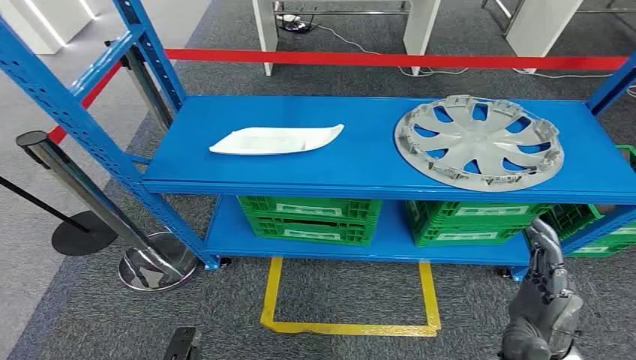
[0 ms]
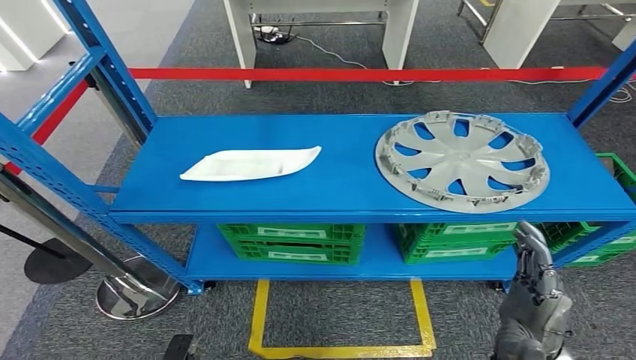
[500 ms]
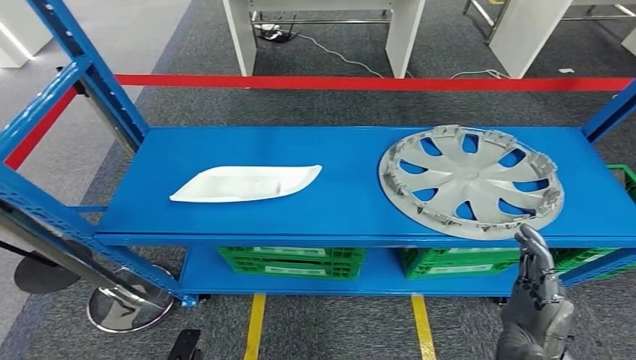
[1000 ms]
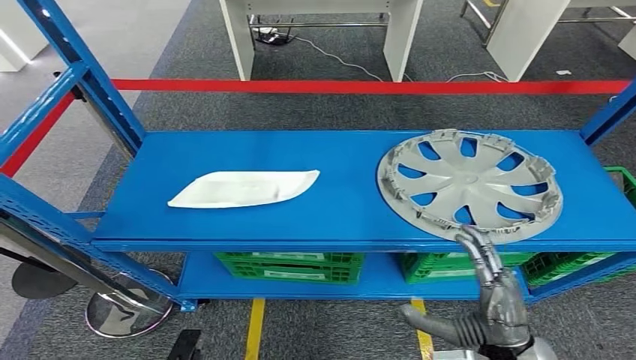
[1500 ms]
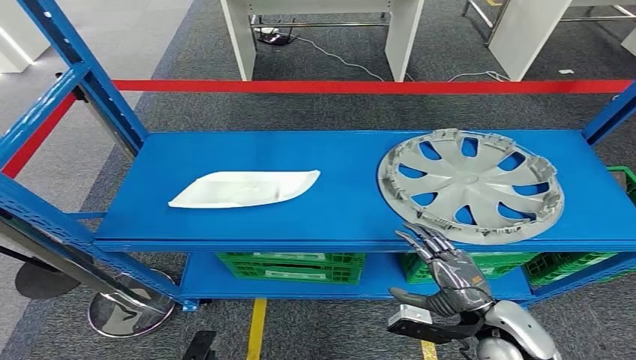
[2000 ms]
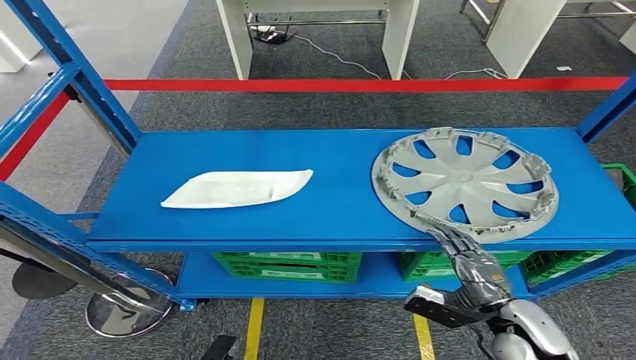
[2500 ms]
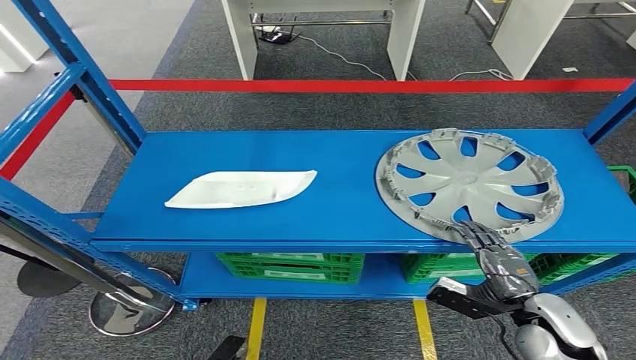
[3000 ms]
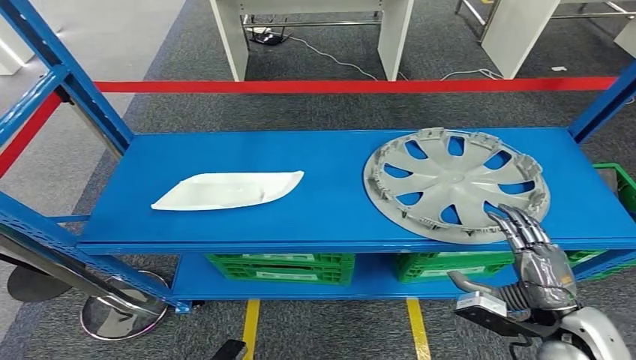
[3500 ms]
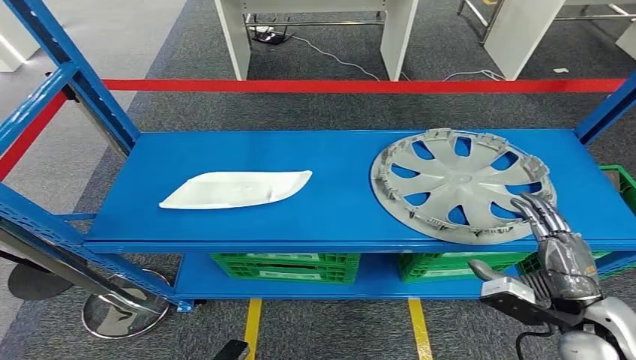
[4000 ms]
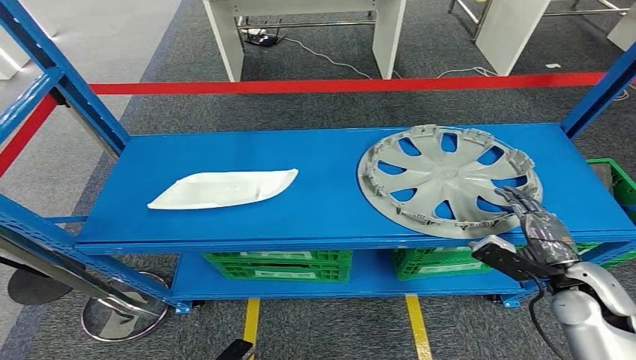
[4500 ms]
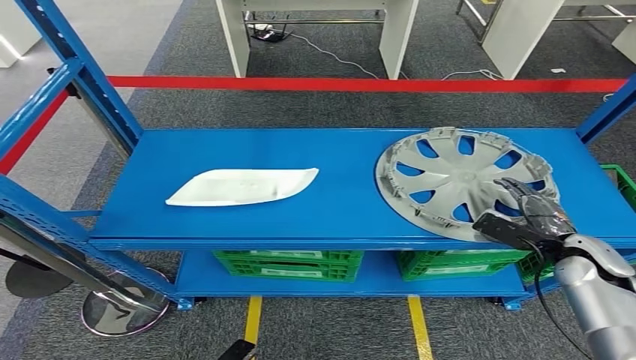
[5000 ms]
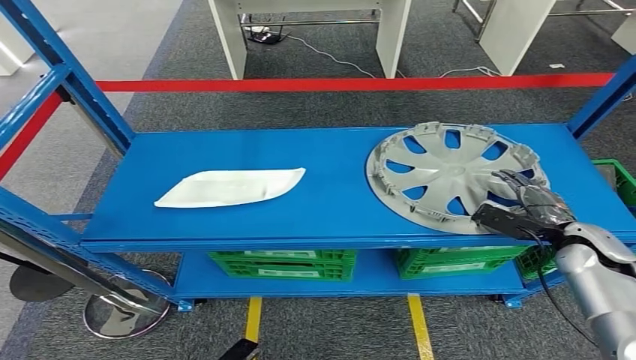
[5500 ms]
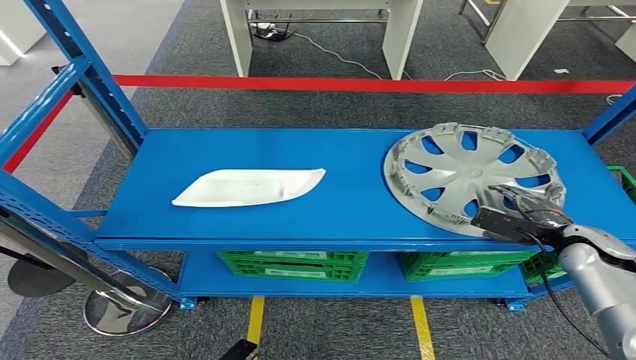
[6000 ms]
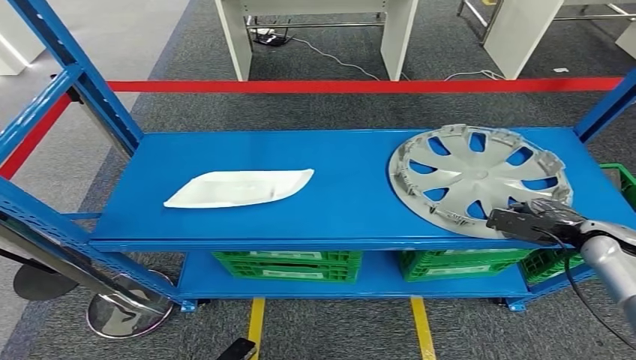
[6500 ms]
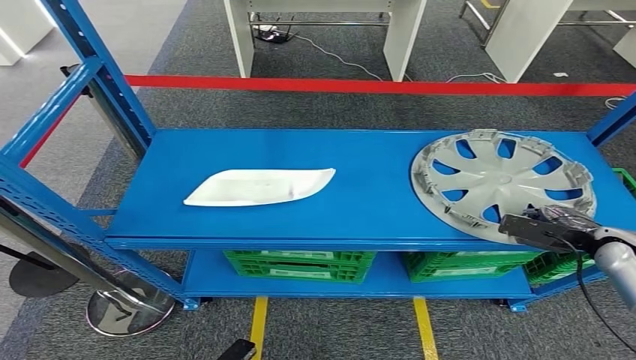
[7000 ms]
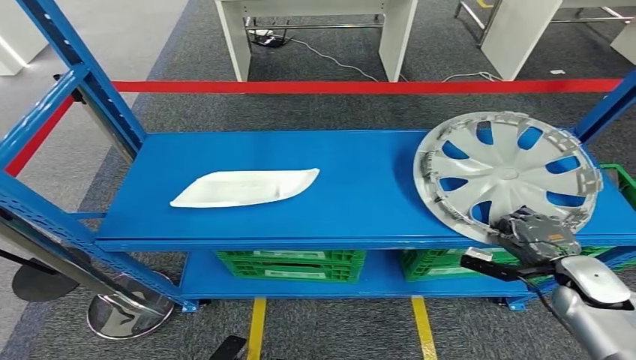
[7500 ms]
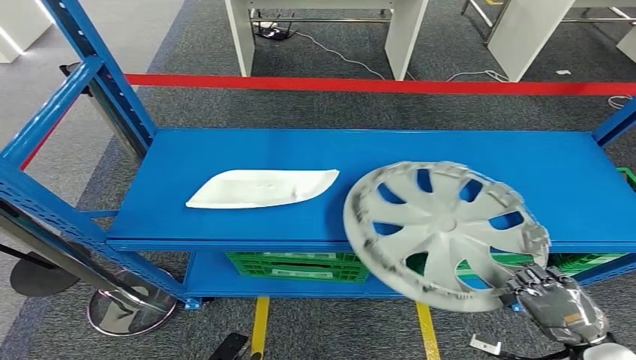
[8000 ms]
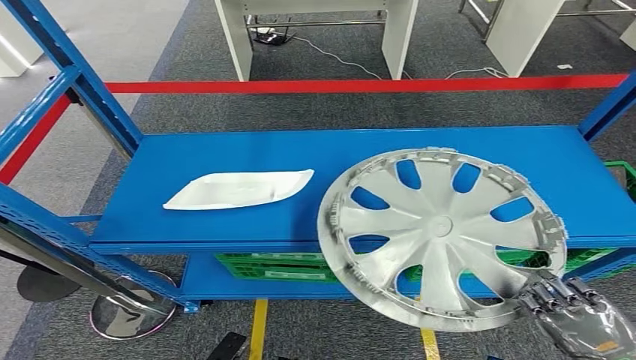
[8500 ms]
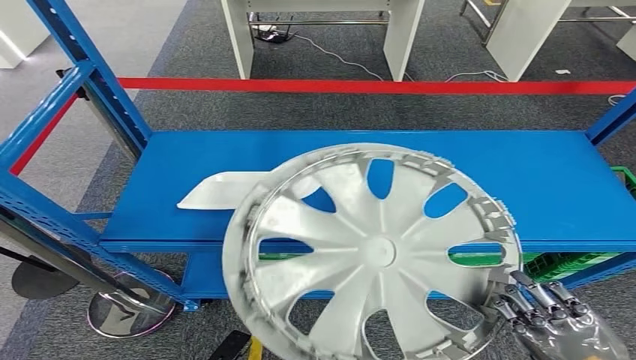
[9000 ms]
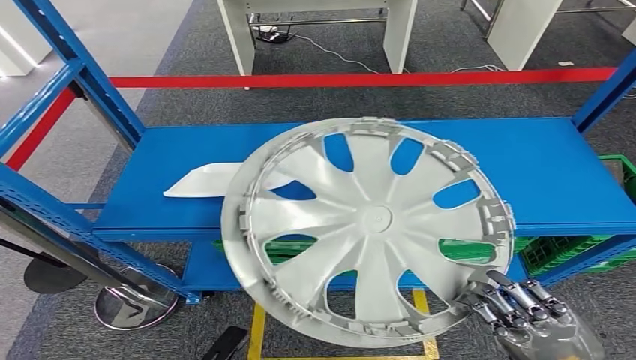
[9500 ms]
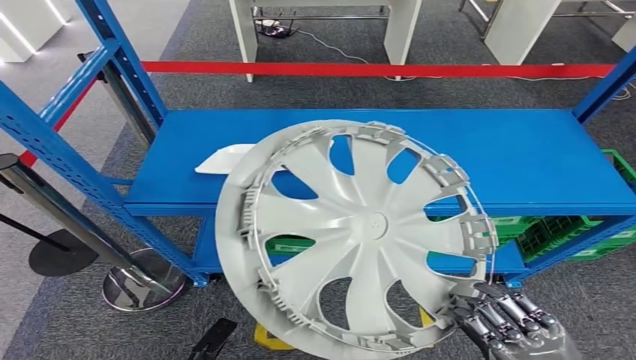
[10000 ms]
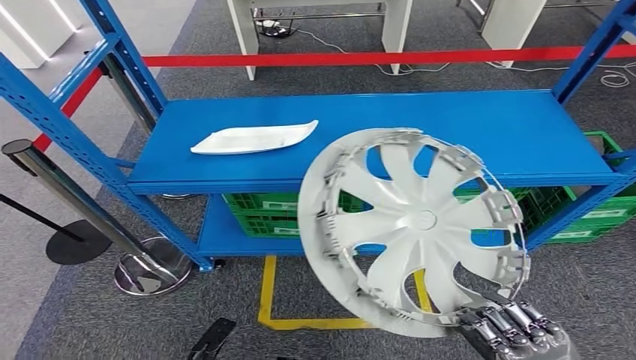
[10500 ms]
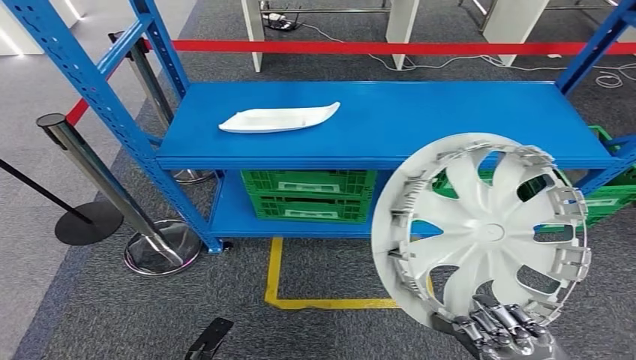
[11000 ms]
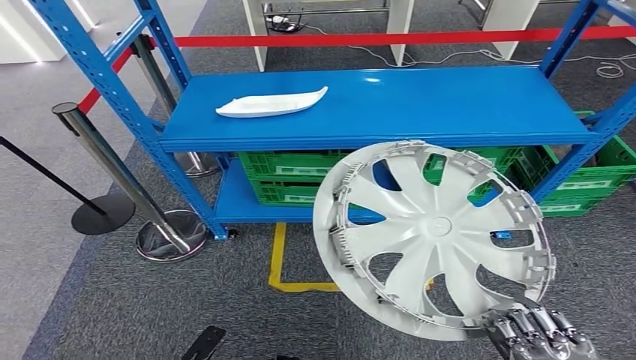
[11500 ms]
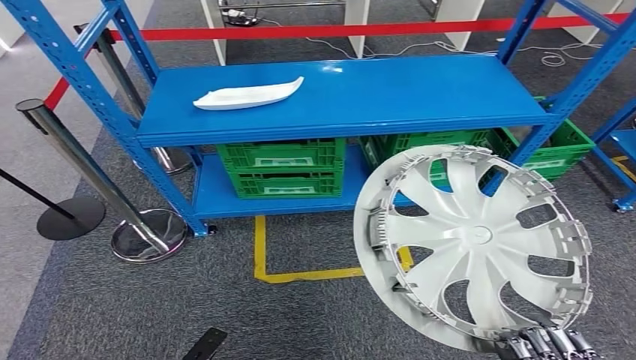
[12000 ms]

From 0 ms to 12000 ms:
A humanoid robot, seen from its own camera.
Step, from 0 ms to 11500 ms: Pick up the small parts from the shelf.

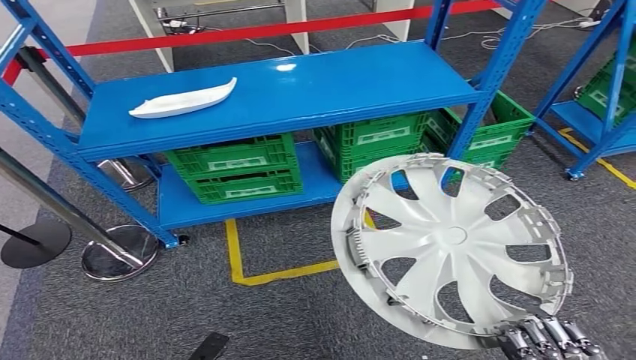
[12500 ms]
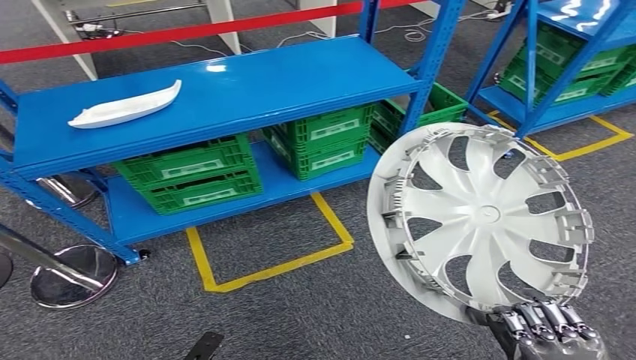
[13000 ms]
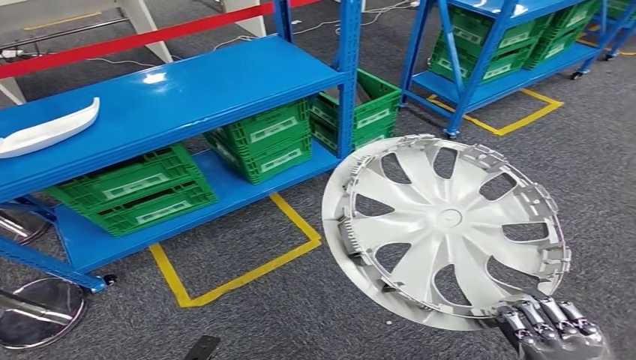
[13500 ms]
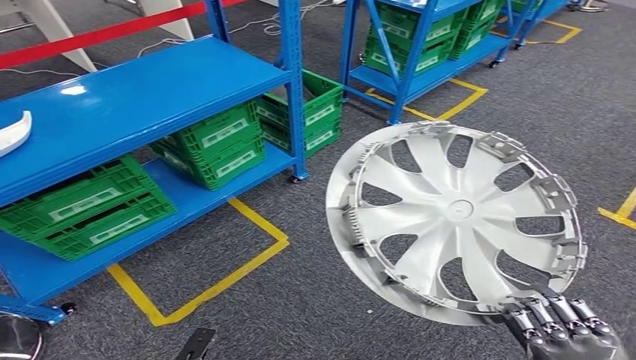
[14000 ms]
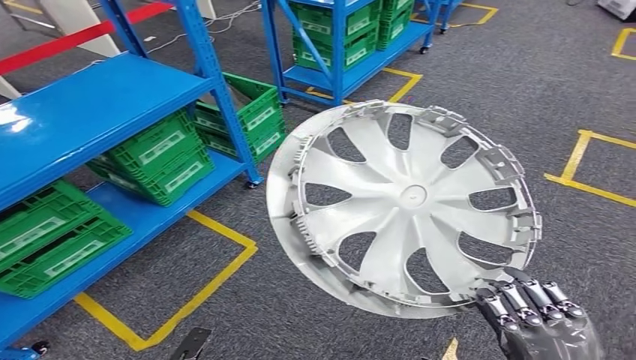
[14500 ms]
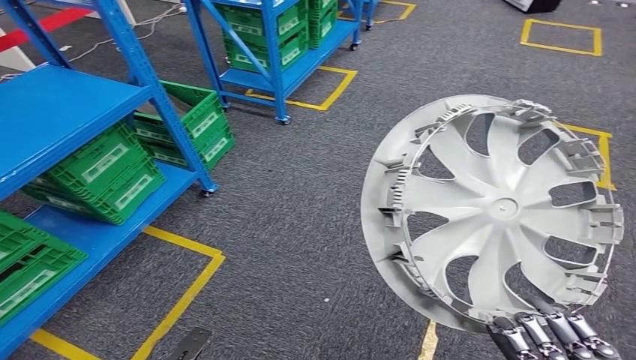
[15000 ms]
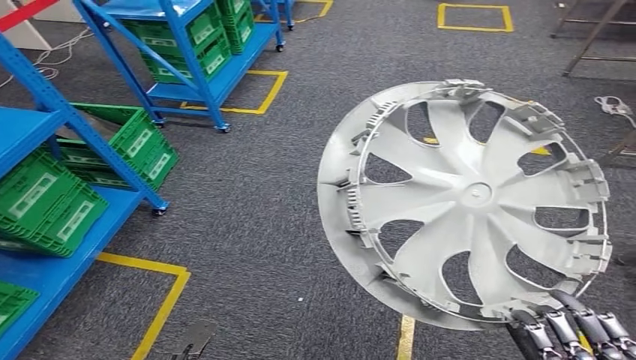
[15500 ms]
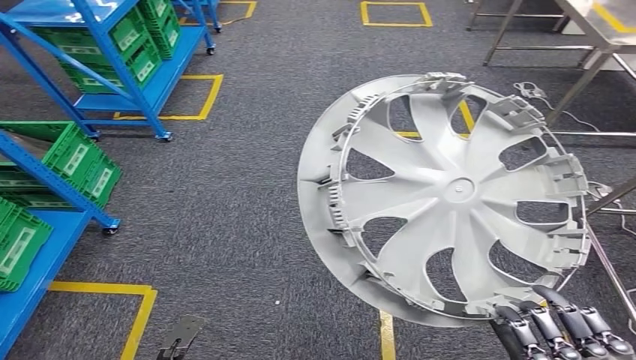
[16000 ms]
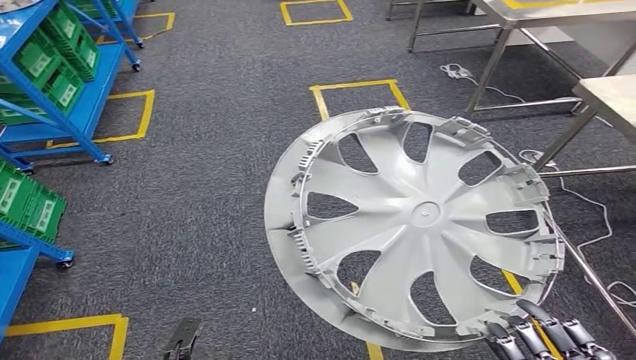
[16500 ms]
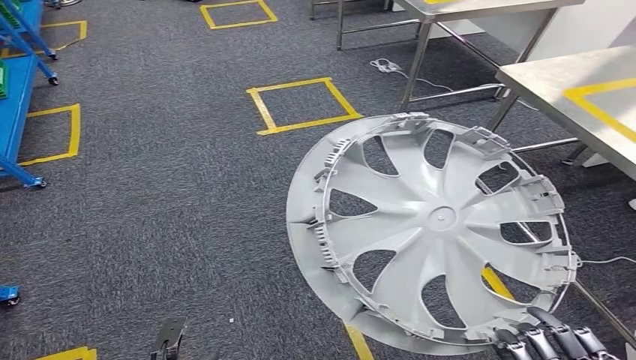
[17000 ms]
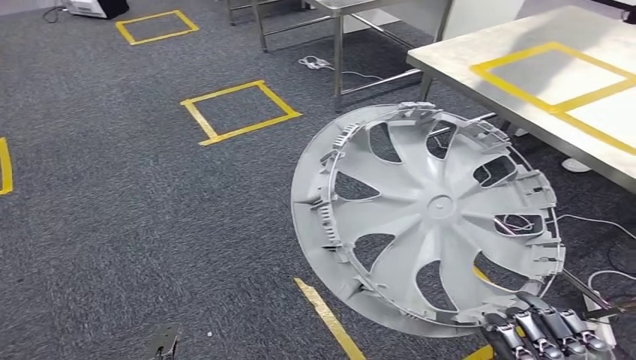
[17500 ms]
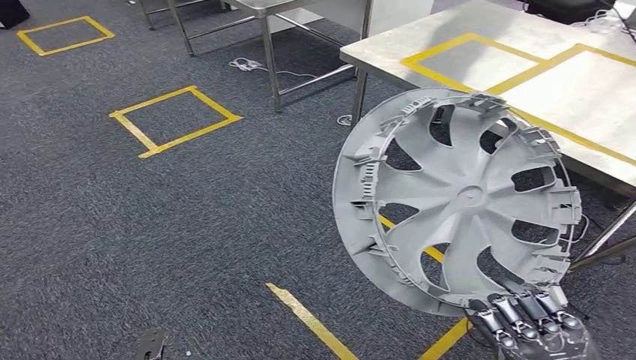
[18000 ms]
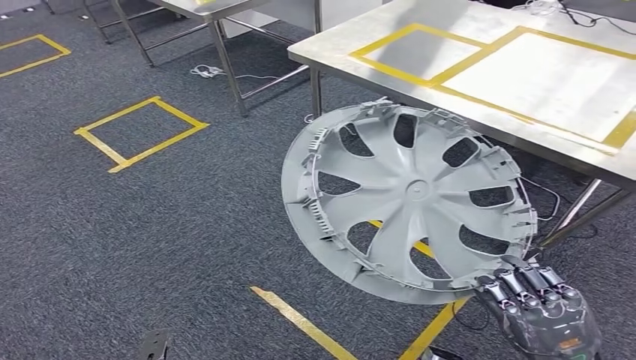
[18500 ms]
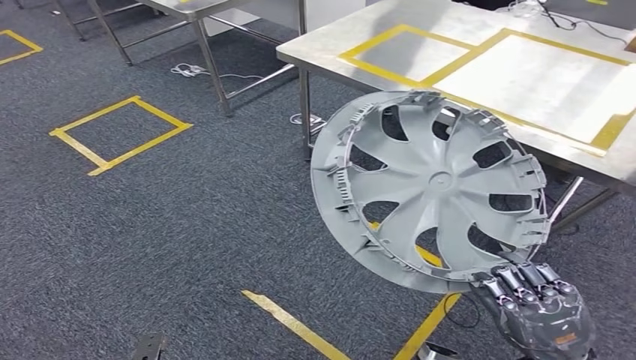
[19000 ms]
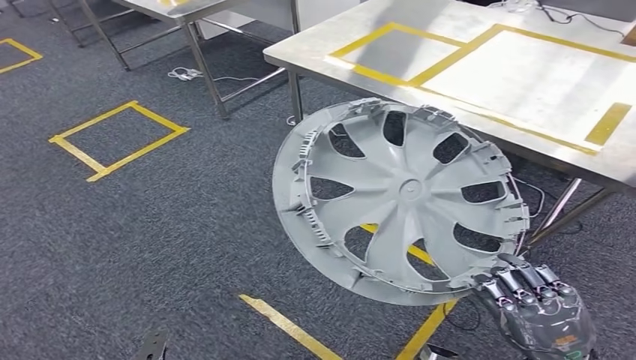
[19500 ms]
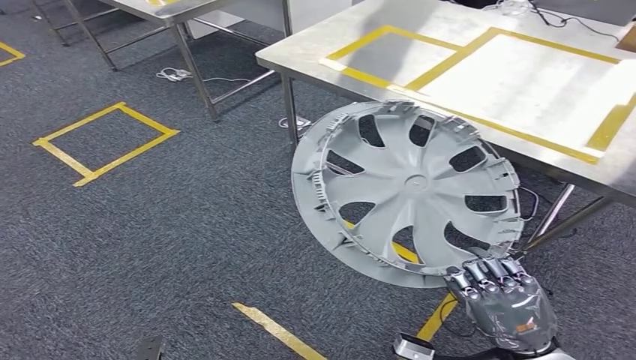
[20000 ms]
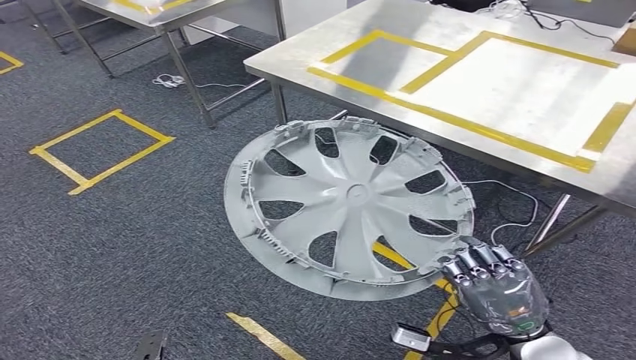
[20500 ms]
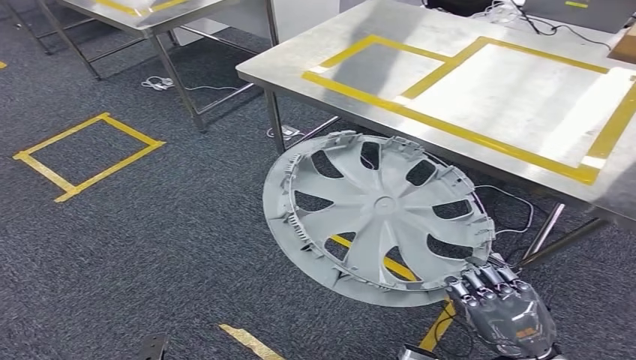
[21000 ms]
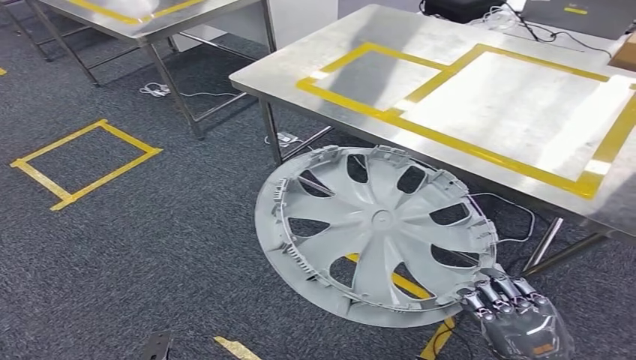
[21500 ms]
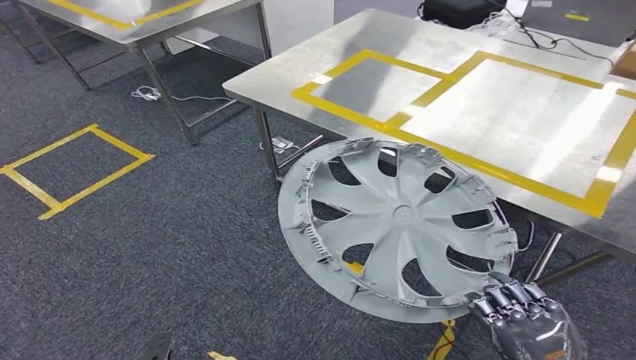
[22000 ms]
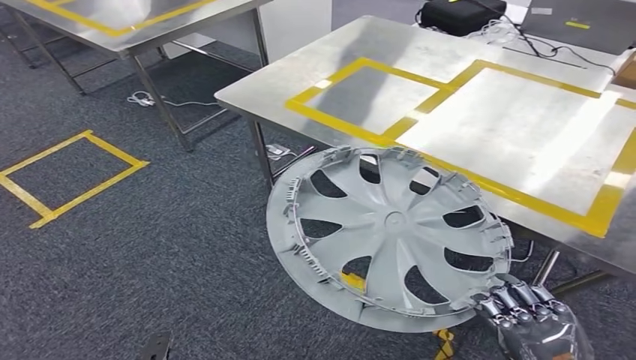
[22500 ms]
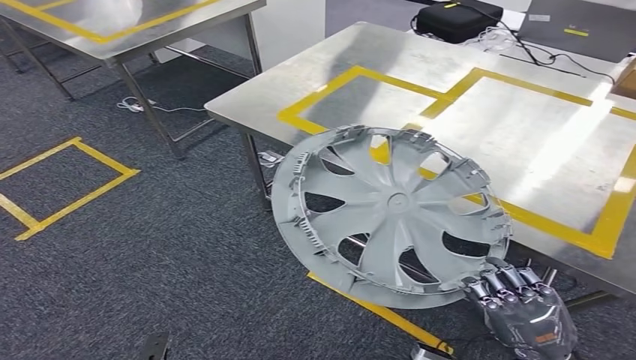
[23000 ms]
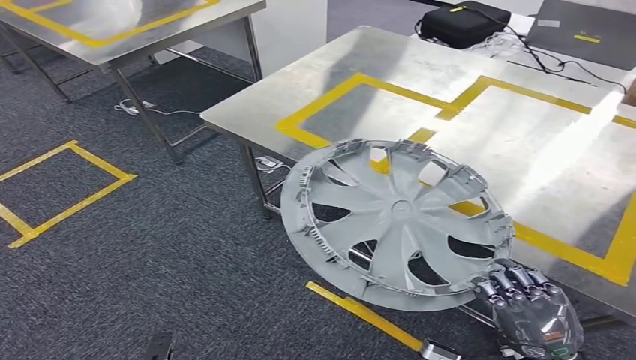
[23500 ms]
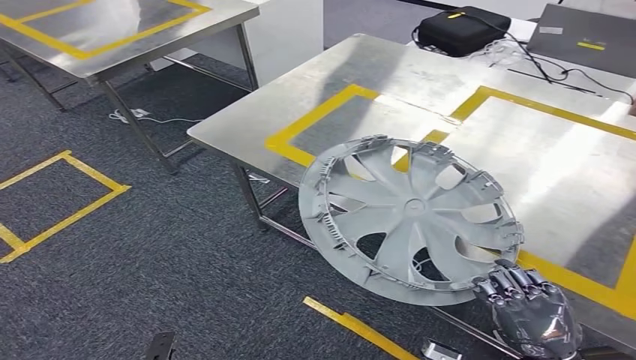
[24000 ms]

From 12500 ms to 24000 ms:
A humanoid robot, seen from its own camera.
Step, from 12500 ms to 22500 ms: Move the small parts to the workbench.
